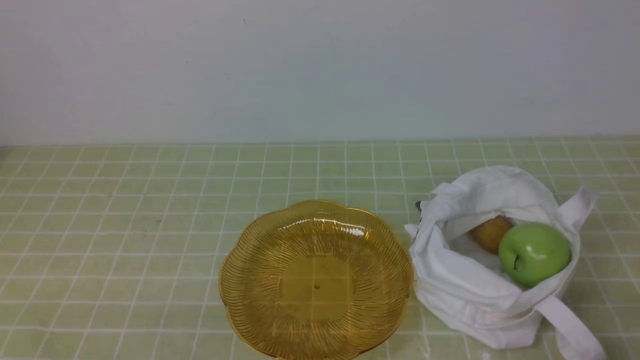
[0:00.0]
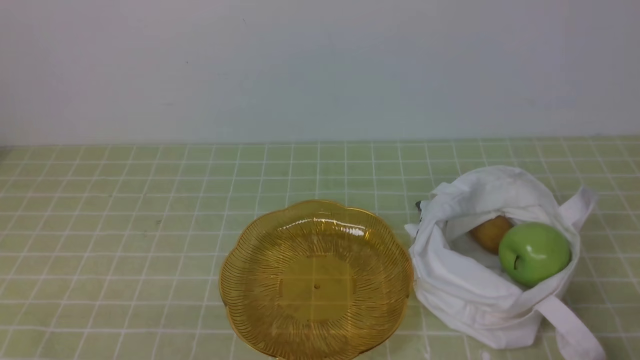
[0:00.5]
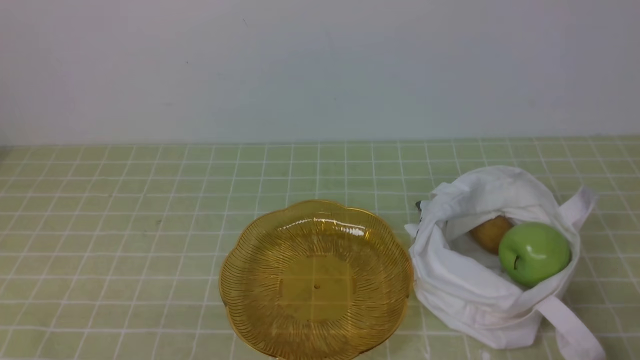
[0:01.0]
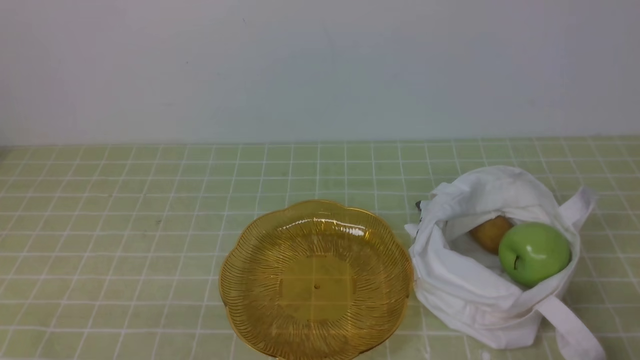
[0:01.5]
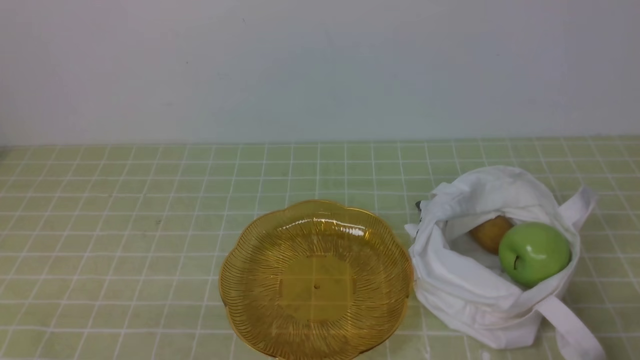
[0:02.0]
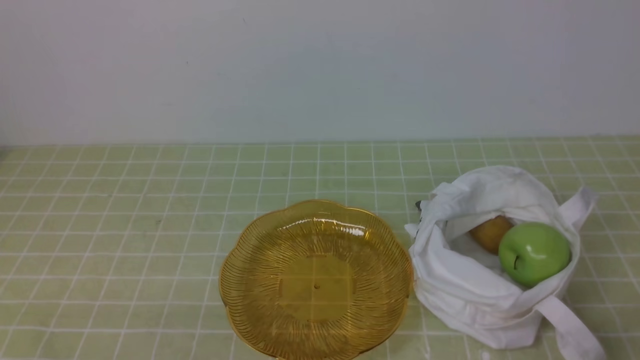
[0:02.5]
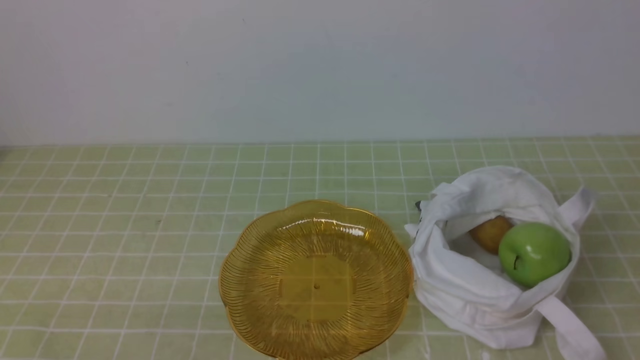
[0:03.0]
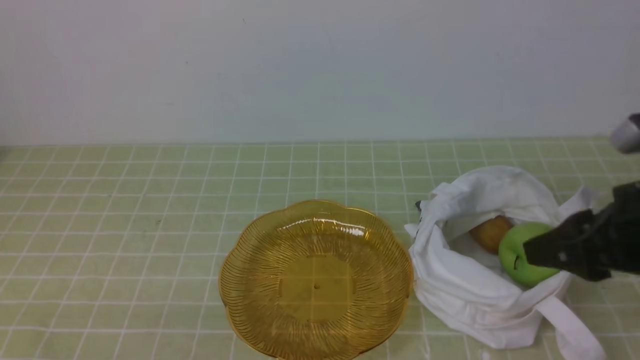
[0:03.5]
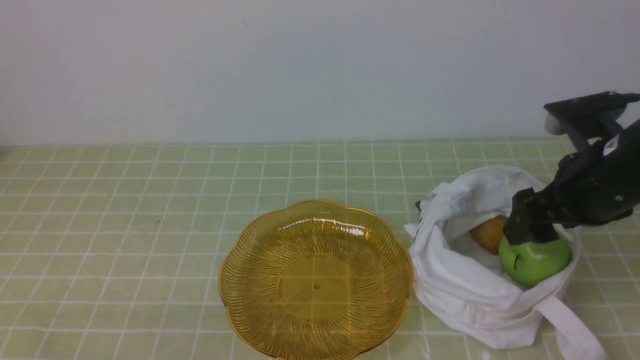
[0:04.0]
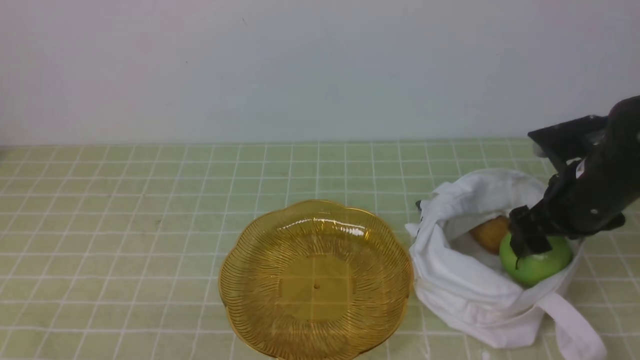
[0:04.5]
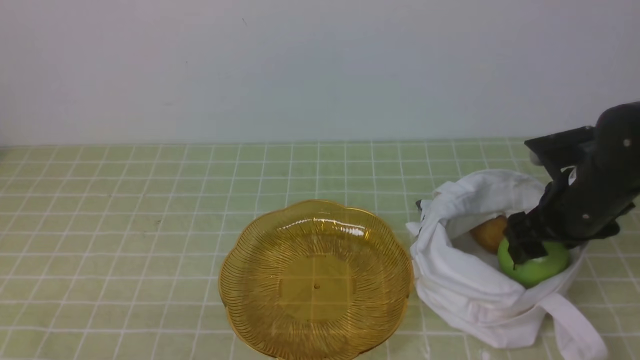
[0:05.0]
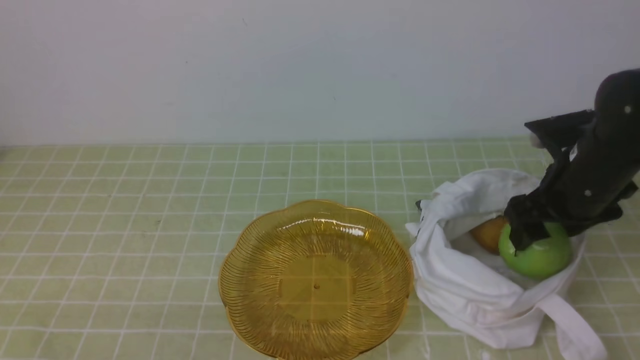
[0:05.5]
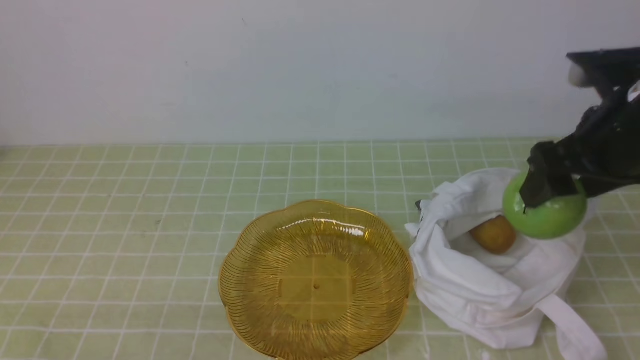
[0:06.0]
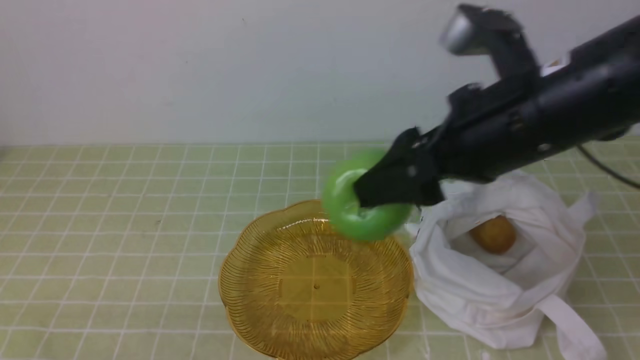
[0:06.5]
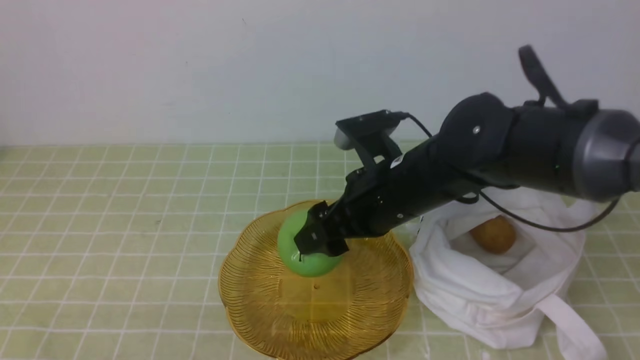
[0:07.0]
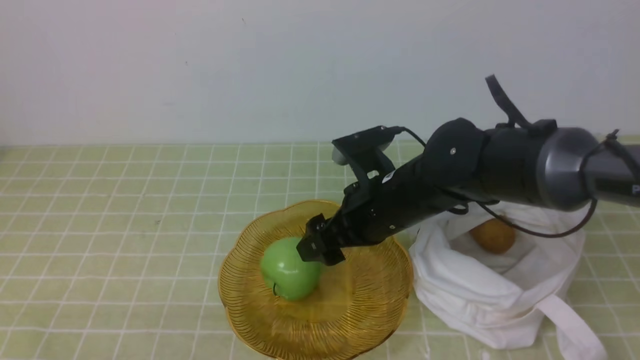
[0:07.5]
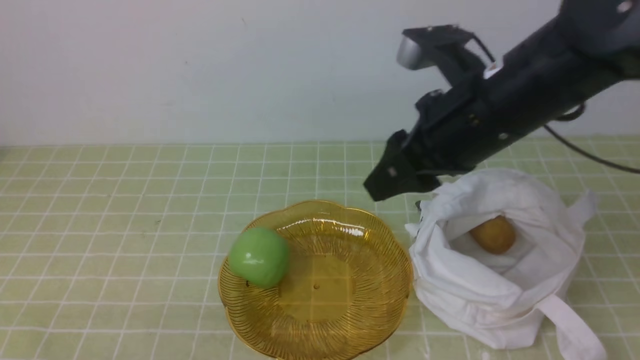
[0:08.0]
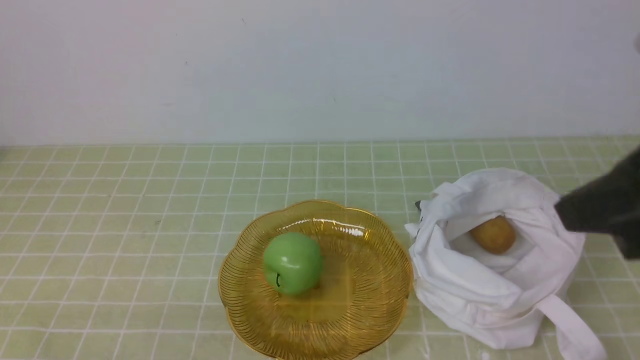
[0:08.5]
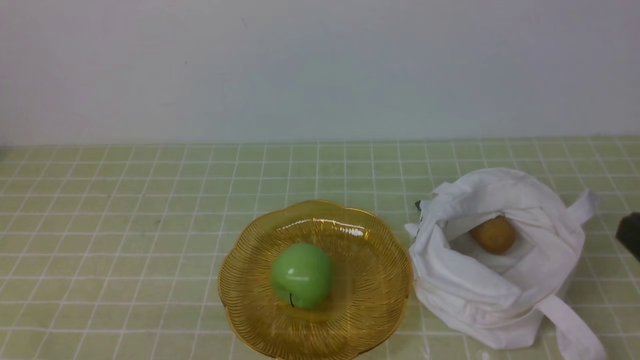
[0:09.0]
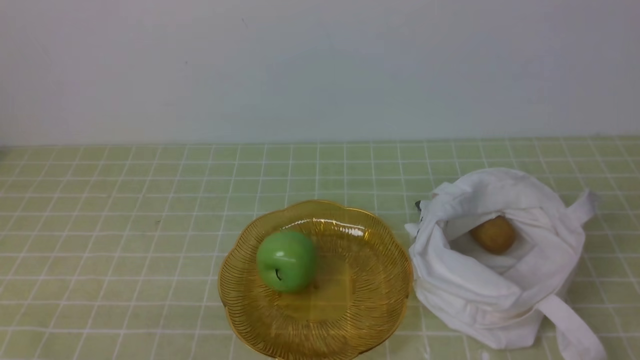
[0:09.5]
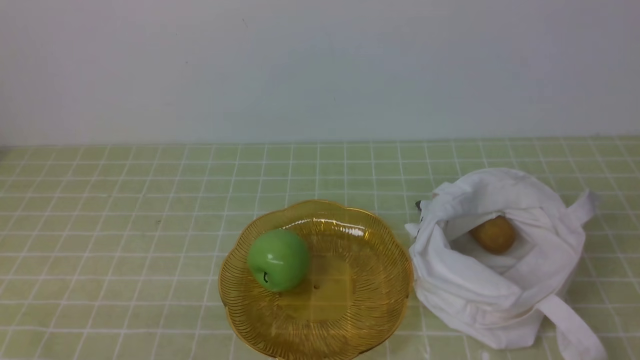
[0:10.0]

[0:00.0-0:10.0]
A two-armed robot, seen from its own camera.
Step, 0:00.0 to 0:05.5: use the right arm to grab an apple from the bag.
Step, 0:06.0 to 0:07.5: use the right arm to put the apple into the empty plate on the left.
0:02.0 to 0:04.0: The right gripper shifts roughly 25 cm forward, and opens up.
0:04.0 to 0:06.0: The right gripper moves upward, about 5 cm.
0:06.0 to 0:08.0: The right gripper travels to the left by roughly 10 cm, and closes.
0:08.0 to 0:10.0: The right gripper shifts some 25 cm backward and to the right, and closes its fingers.

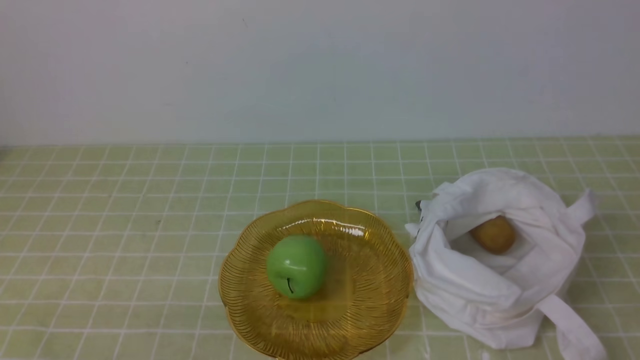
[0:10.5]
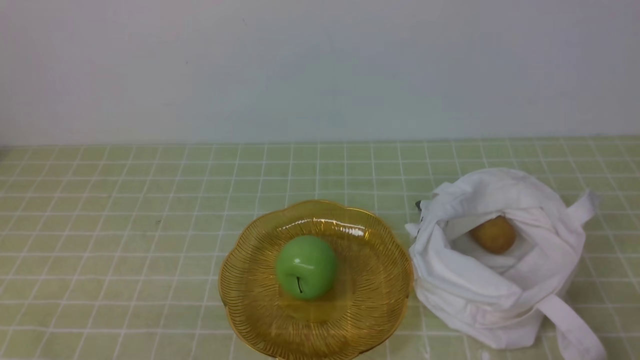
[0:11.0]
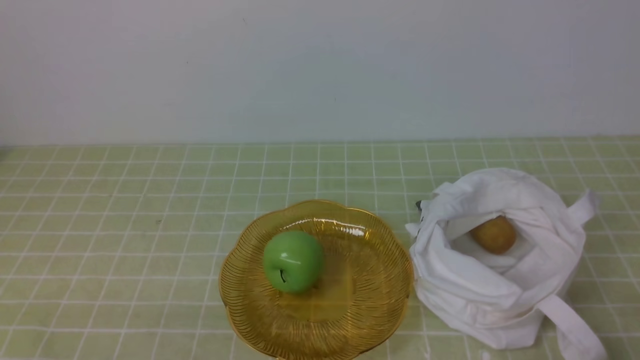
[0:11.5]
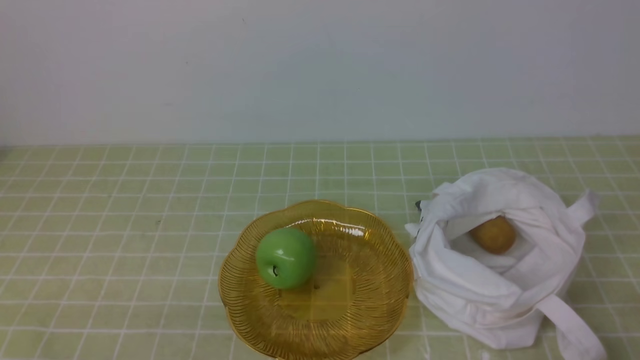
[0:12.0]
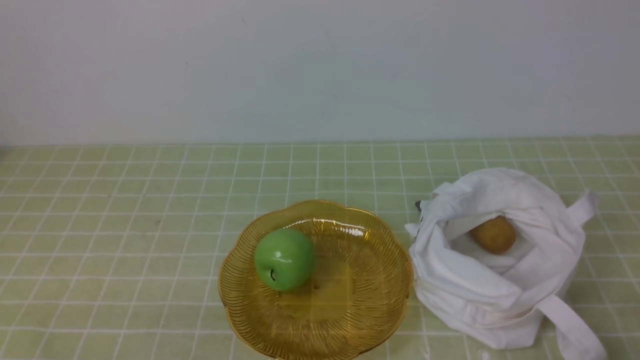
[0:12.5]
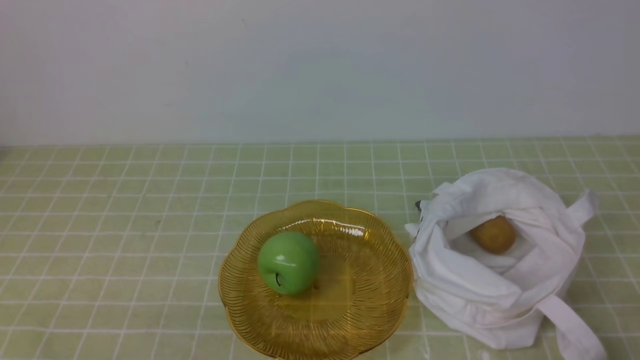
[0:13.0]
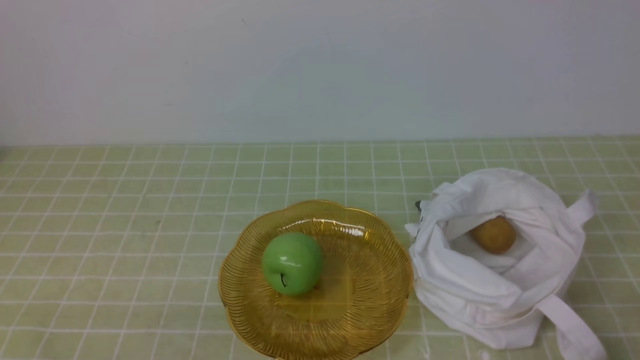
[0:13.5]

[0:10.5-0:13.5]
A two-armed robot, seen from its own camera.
0:10.5 to 0:12.0: The right gripper moves downward, roughly 5 cm.
0:12.0 to 0:13.5: The two grippers keep their place.

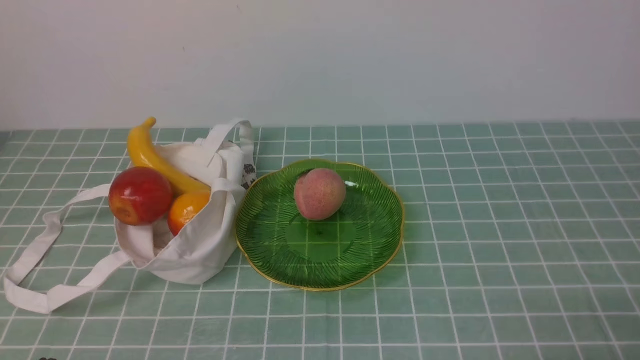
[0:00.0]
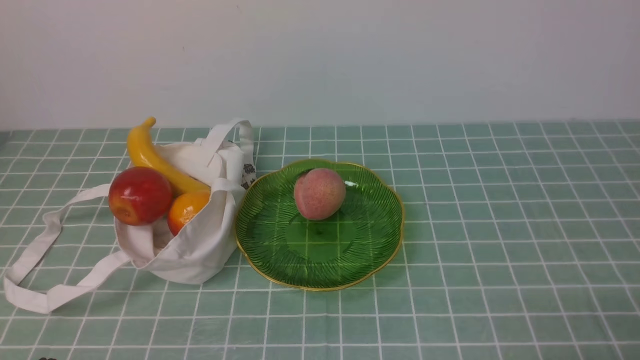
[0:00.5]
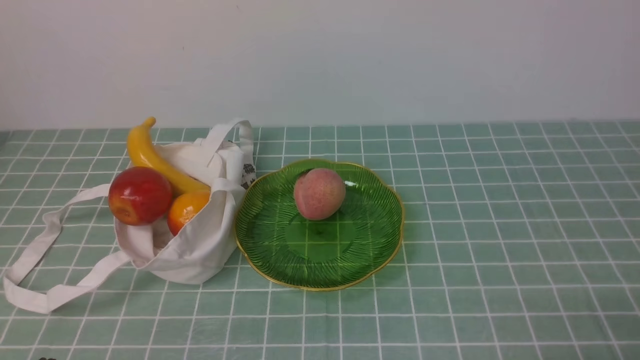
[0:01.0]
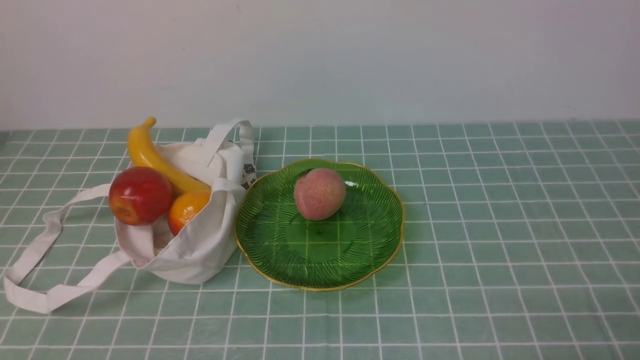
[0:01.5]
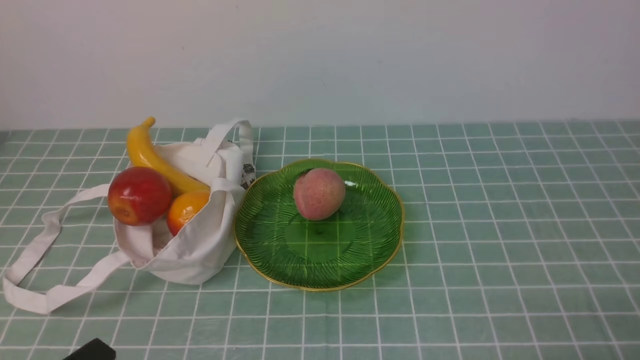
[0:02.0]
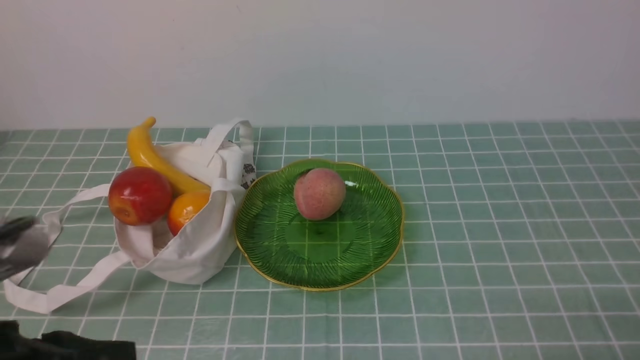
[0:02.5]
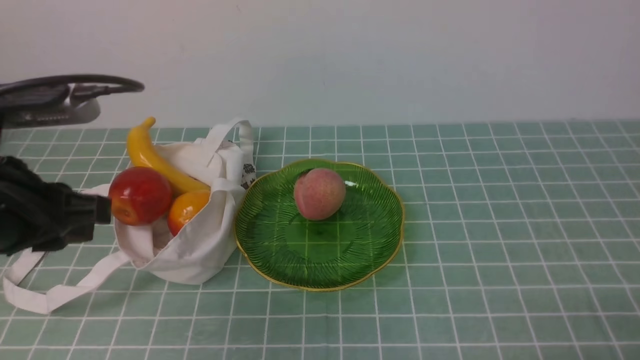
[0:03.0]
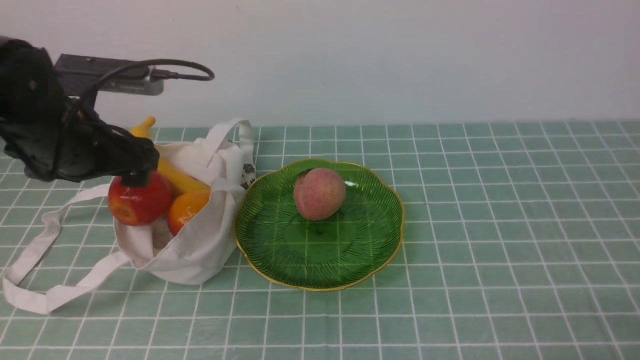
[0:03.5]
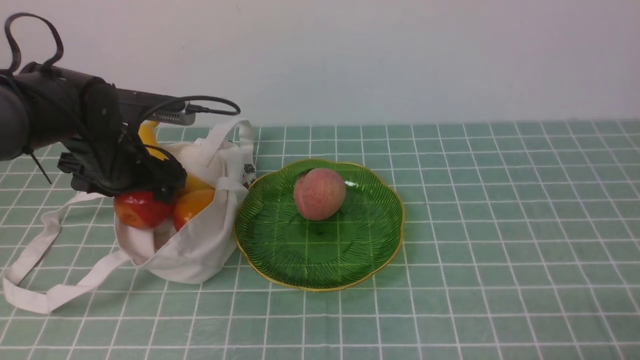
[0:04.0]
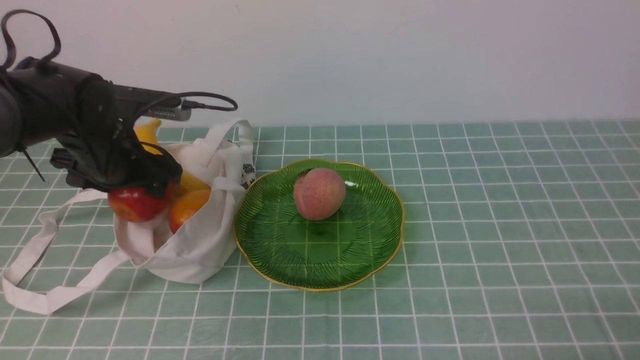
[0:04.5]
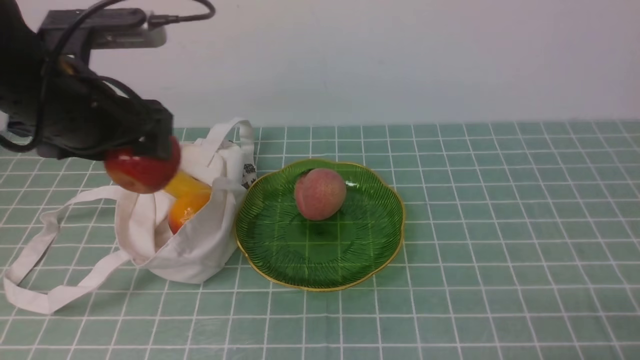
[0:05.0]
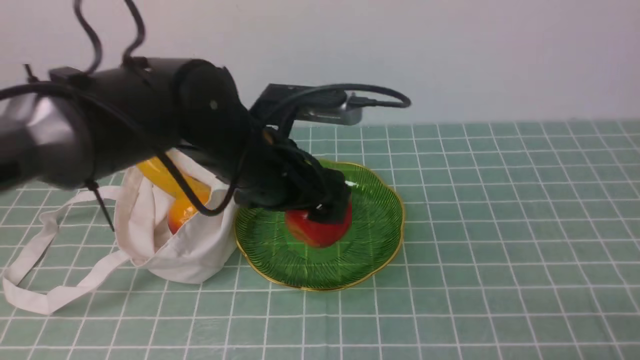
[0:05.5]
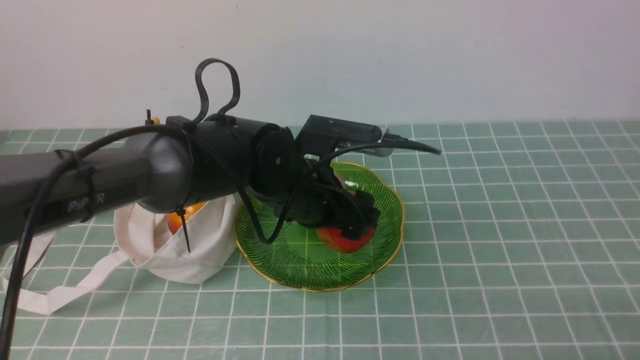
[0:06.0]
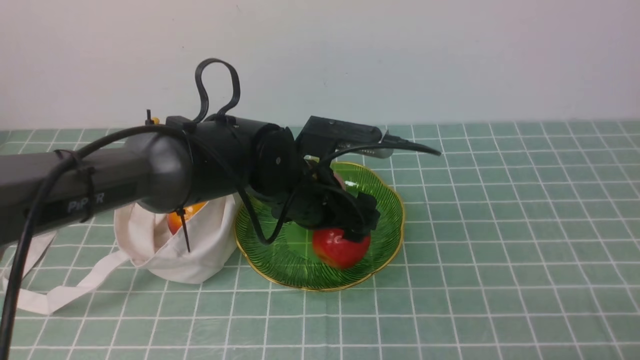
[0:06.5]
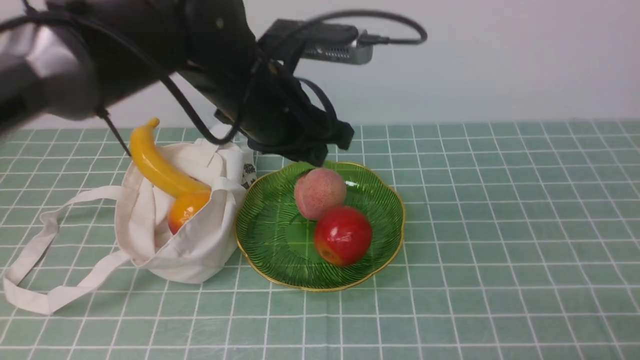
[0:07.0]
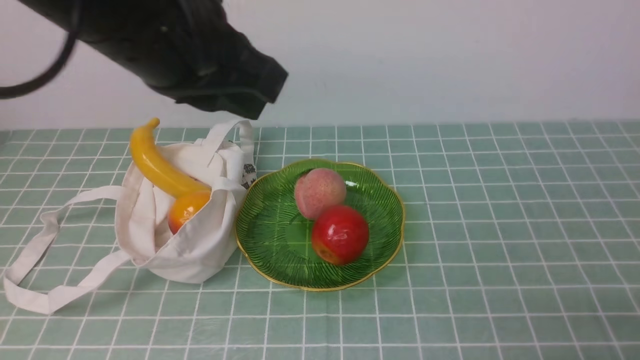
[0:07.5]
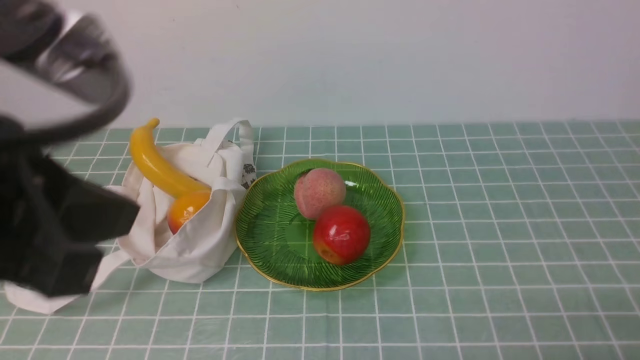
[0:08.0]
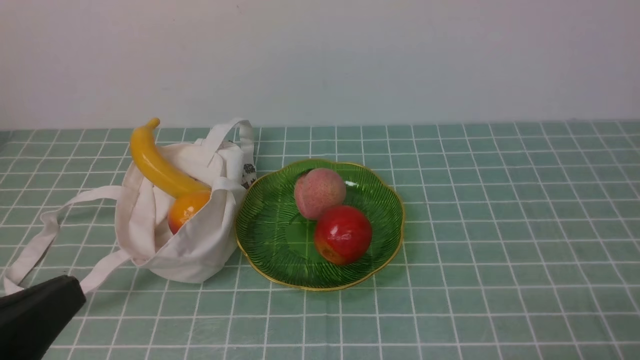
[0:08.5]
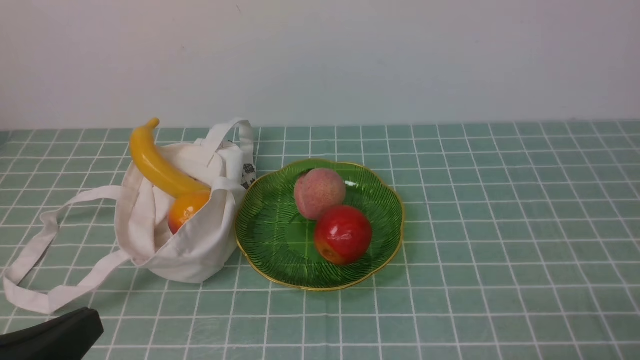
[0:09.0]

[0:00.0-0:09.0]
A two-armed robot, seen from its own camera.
Step, 0:00.0 to 0:04.5: use the left arm to grab an apple from the bag.
Step, 0:05.0 to 0:06.0: use the left arm to put the apple into the empty plate on the right.
0:02.0 to 0:04.5: The left gripper goes roughly 35 cm forward, and opens its fingers.
0:04.5 to 0:07.0: The left gripper shifts some 20 cm to the right, and closes.
0:07.0 to 0:09.0: The left gripper shifts some 35 cm backward and to the left, and closes.
